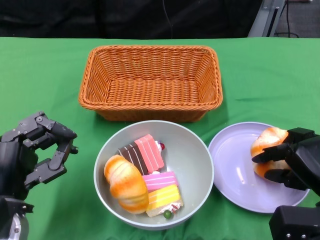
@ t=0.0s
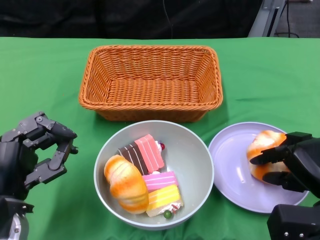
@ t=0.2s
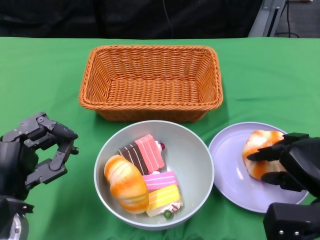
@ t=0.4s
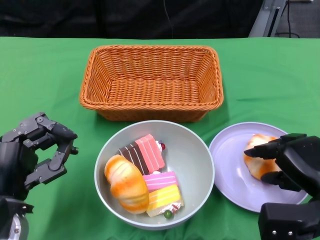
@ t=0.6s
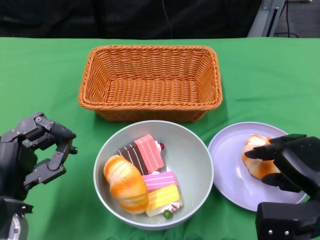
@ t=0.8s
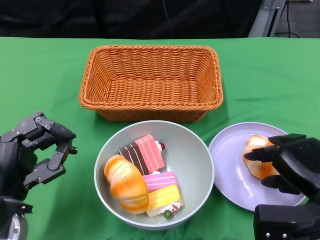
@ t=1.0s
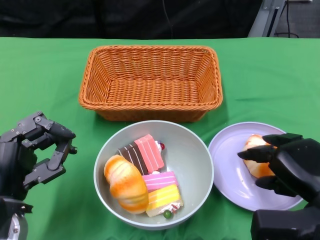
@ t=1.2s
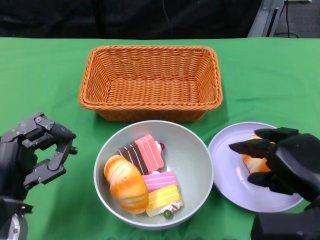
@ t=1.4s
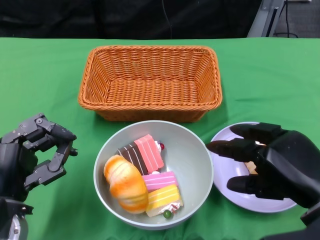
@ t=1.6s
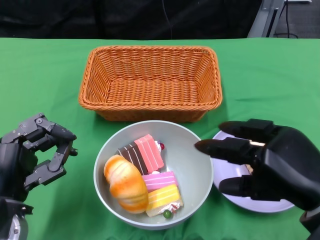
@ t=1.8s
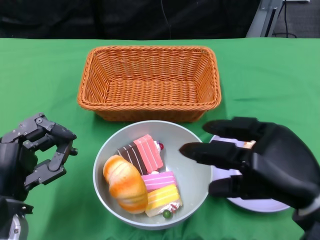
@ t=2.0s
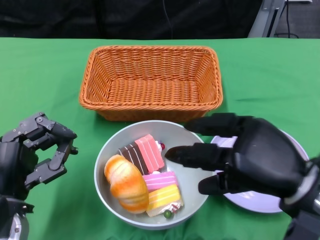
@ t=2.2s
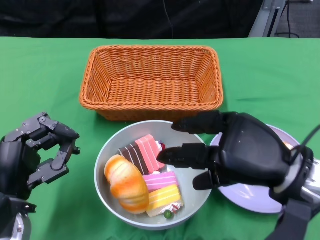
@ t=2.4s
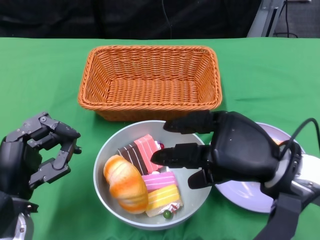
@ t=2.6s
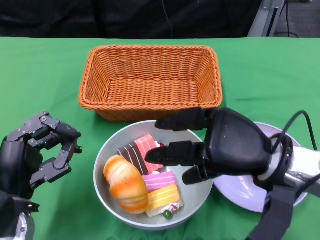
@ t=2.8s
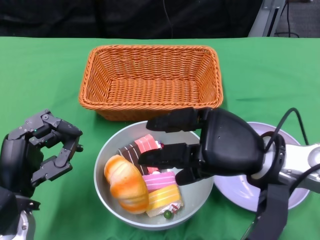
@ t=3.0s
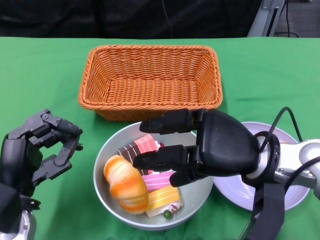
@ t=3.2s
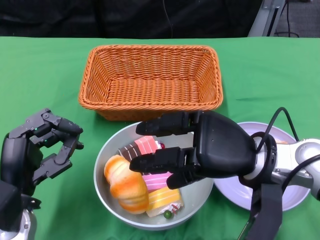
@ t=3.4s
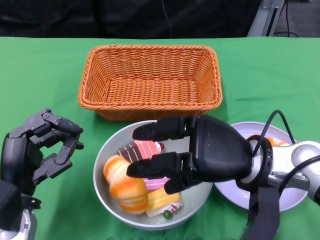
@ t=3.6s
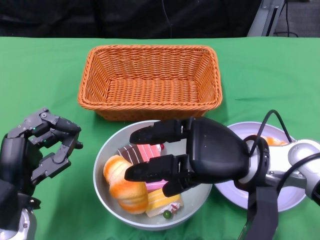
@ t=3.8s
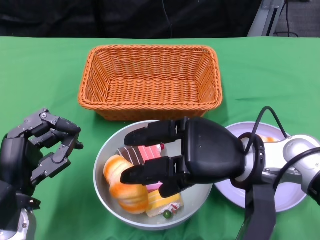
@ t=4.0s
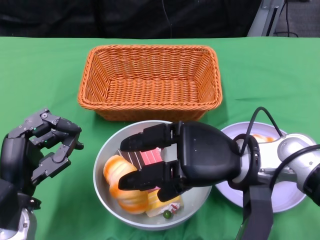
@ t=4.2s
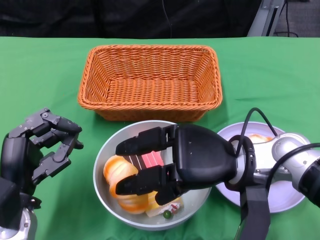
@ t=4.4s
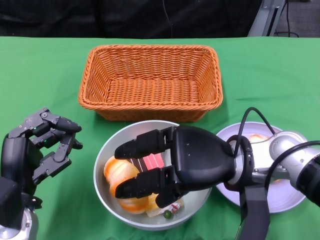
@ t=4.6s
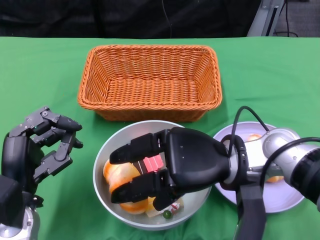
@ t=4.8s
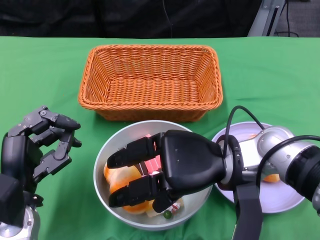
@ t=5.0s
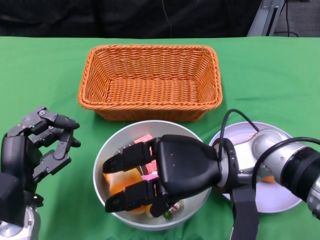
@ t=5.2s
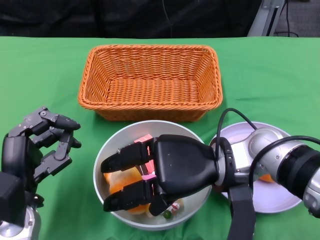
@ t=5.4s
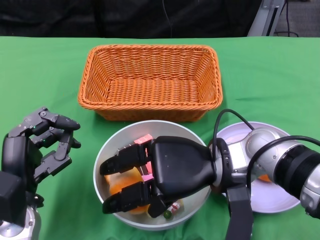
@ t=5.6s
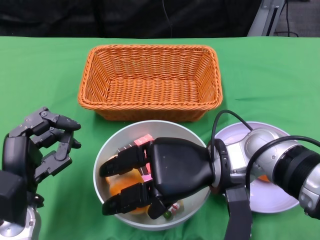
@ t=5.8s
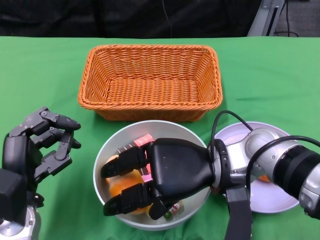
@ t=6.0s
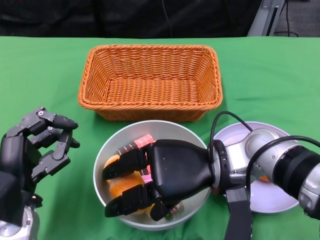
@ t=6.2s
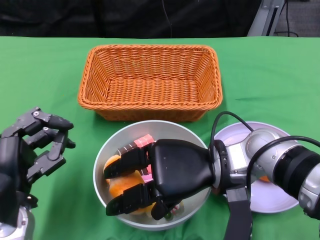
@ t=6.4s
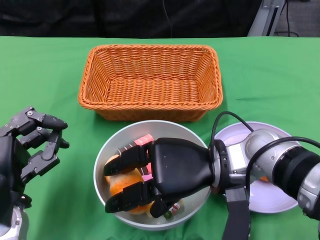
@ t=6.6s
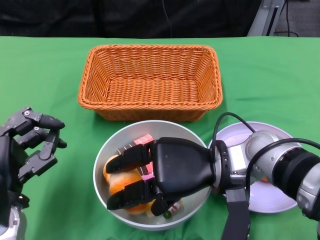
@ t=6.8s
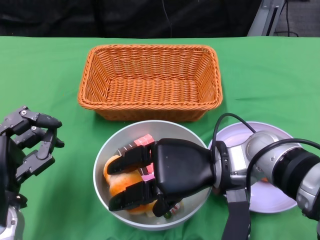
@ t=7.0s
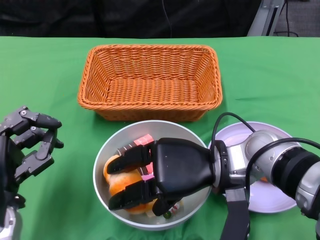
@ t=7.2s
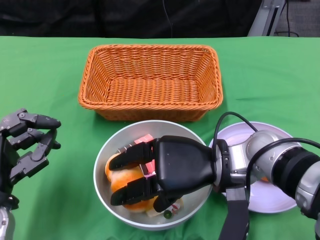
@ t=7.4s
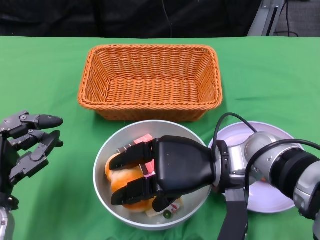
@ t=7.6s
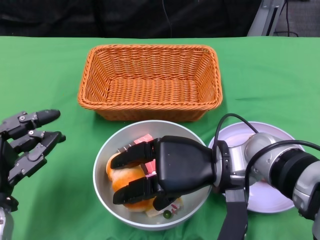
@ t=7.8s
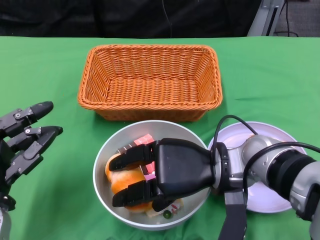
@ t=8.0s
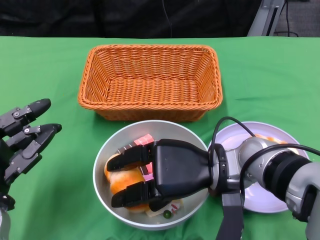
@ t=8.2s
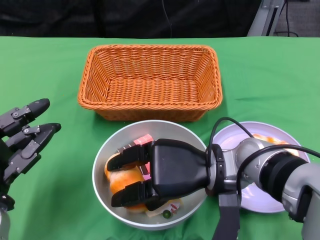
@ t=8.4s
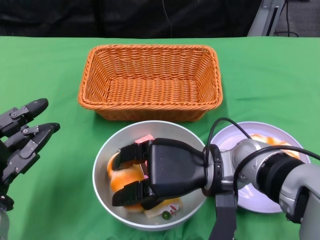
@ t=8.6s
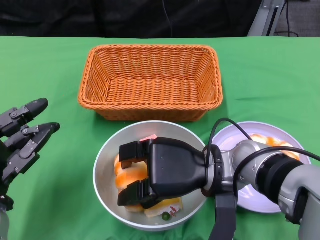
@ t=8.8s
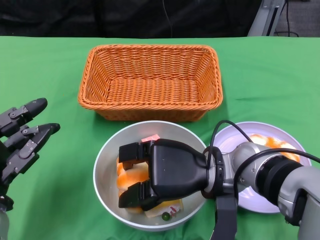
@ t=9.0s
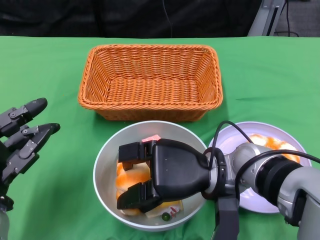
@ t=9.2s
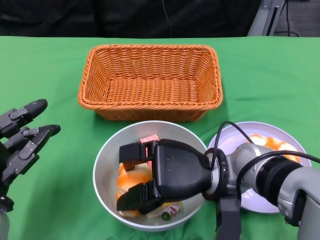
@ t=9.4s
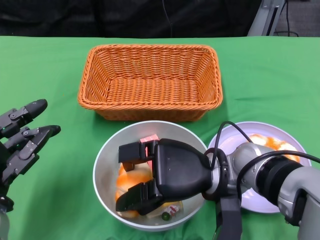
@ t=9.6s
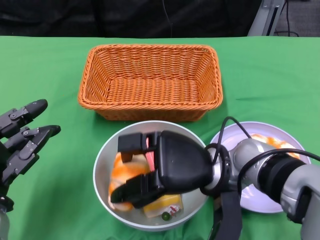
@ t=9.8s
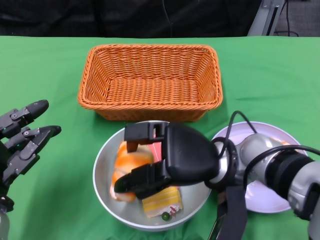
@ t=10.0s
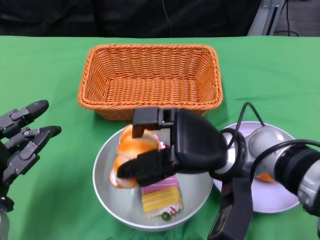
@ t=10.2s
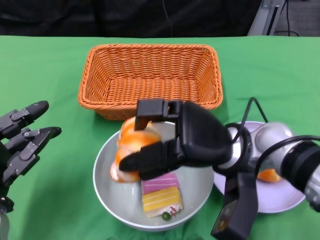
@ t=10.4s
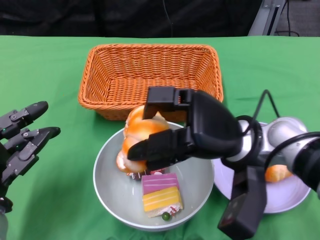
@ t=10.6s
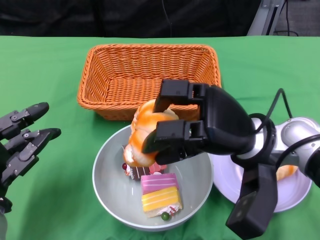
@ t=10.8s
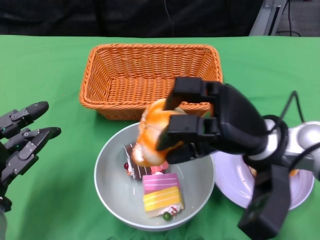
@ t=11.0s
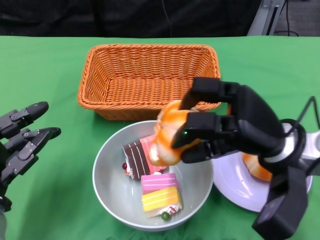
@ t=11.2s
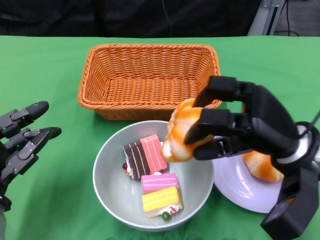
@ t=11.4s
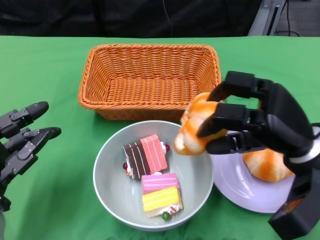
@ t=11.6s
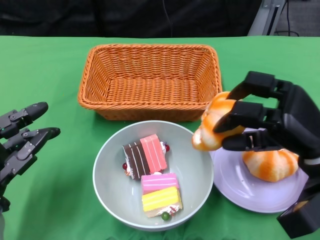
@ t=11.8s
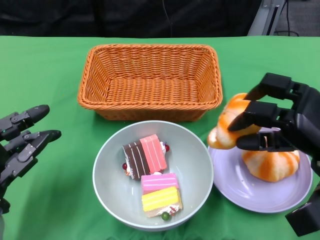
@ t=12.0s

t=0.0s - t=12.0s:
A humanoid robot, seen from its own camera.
t=0.0s - t=1.6s: The right hand moves upward, roughly 5 cm.
t=1.6s - t=3.0s: The right hand heads forward and to the left, covering about 10 cm.
t=6.0s - t=7.6s: The hands make only small movements.
t=10.4s - t=12.0s: The right hand travels to the right by roughly 15 cm.

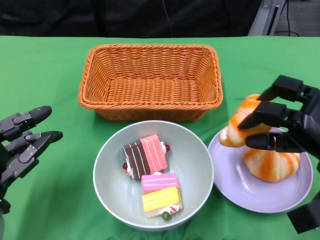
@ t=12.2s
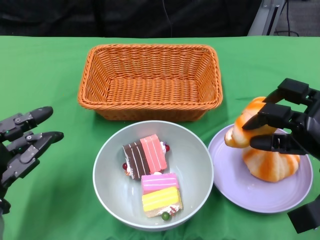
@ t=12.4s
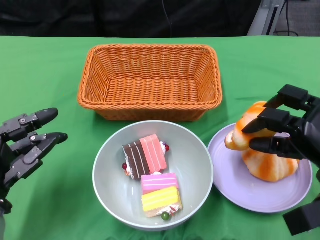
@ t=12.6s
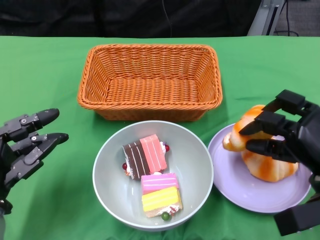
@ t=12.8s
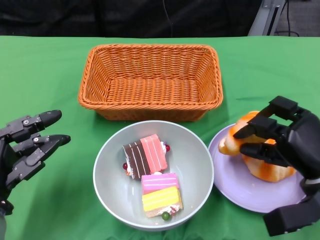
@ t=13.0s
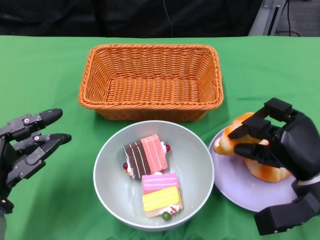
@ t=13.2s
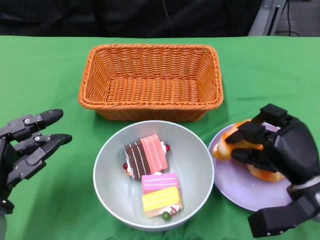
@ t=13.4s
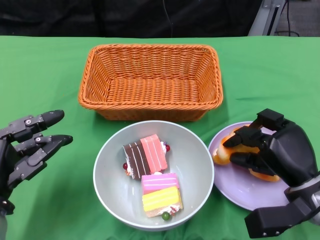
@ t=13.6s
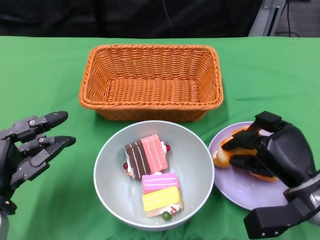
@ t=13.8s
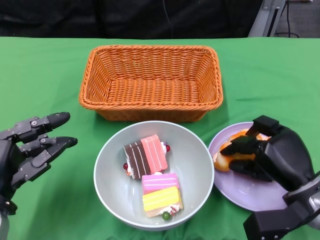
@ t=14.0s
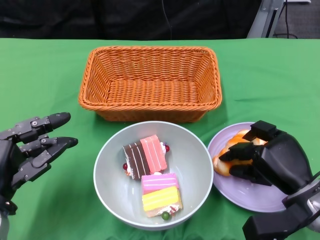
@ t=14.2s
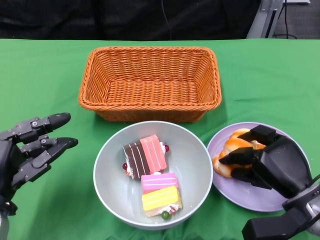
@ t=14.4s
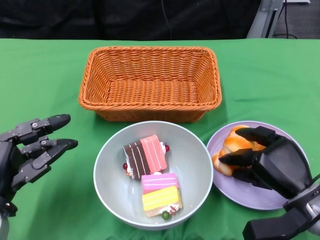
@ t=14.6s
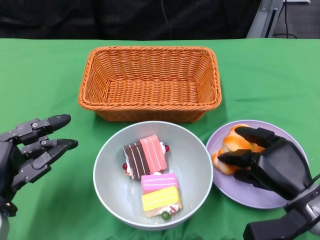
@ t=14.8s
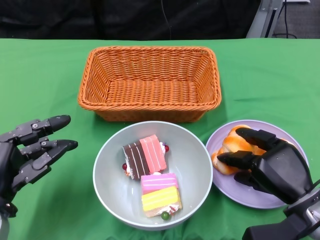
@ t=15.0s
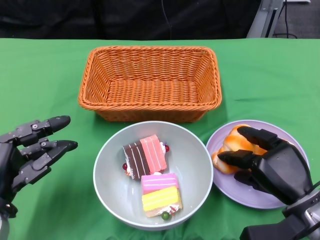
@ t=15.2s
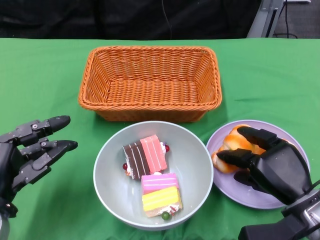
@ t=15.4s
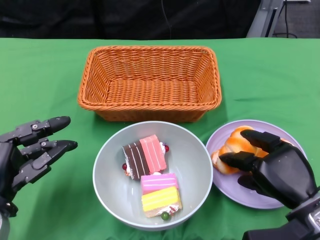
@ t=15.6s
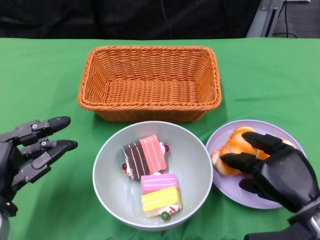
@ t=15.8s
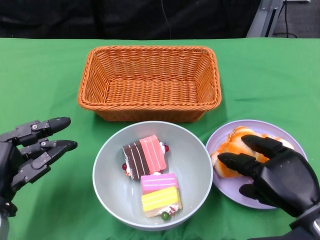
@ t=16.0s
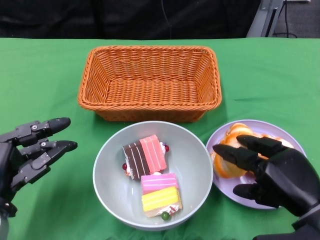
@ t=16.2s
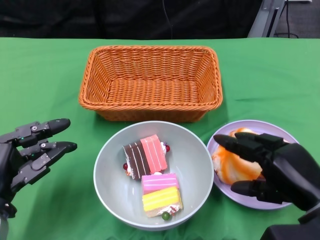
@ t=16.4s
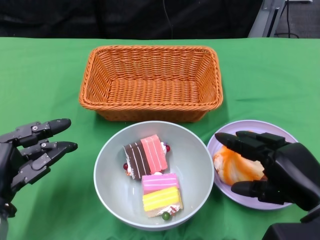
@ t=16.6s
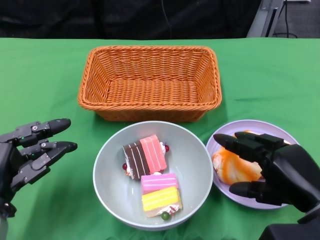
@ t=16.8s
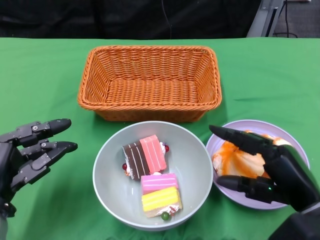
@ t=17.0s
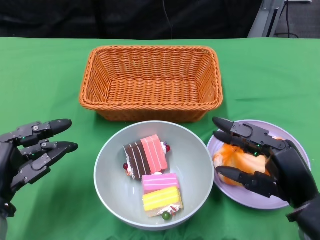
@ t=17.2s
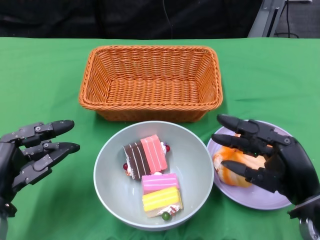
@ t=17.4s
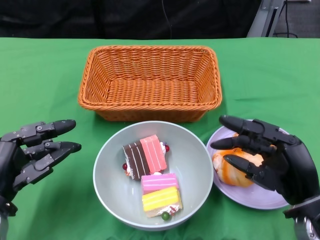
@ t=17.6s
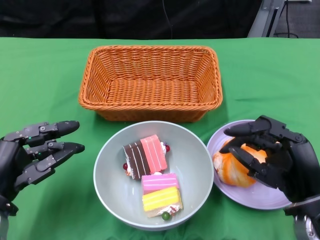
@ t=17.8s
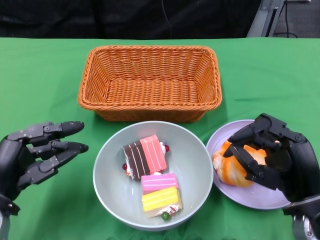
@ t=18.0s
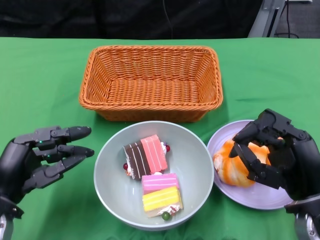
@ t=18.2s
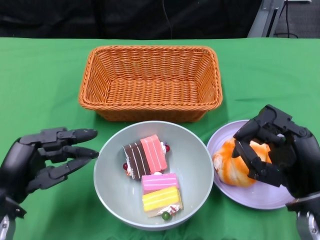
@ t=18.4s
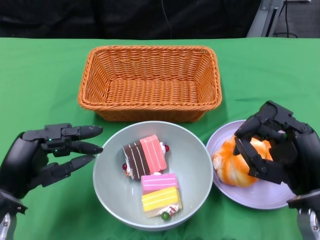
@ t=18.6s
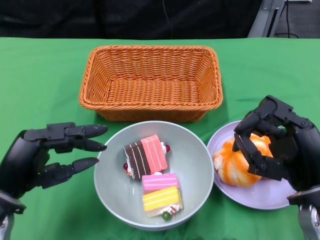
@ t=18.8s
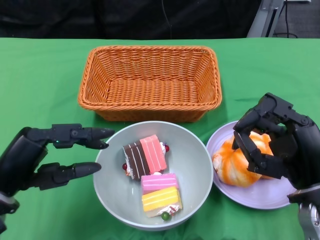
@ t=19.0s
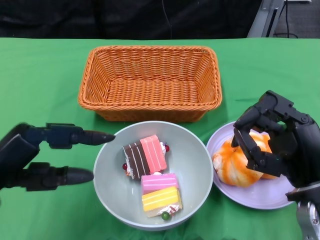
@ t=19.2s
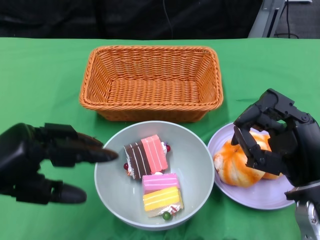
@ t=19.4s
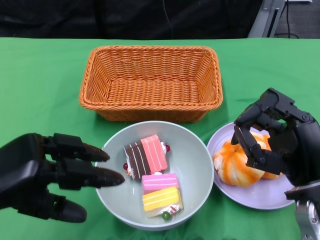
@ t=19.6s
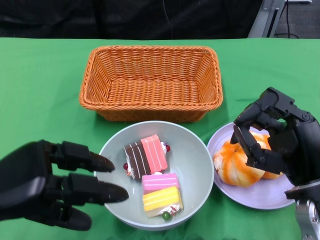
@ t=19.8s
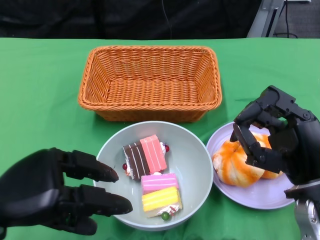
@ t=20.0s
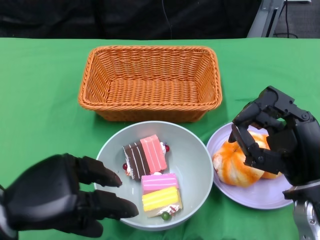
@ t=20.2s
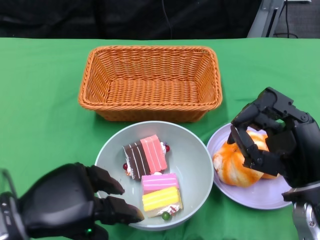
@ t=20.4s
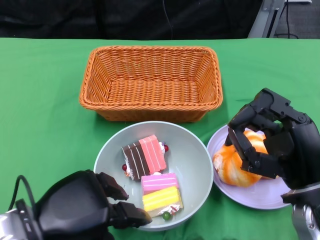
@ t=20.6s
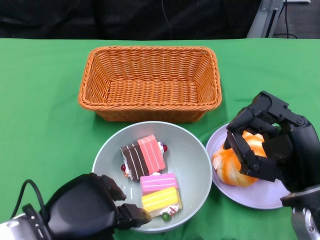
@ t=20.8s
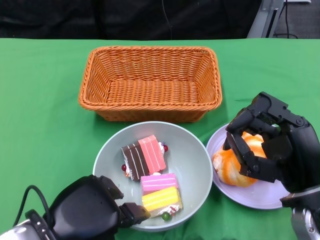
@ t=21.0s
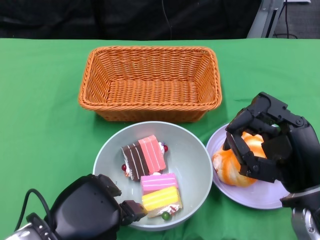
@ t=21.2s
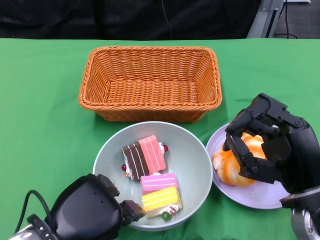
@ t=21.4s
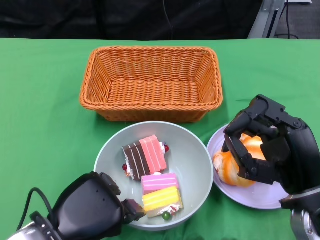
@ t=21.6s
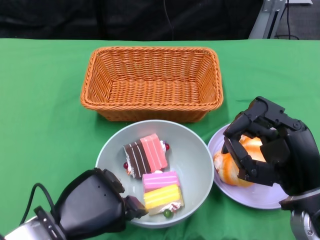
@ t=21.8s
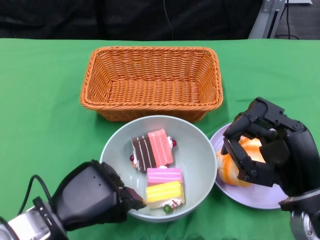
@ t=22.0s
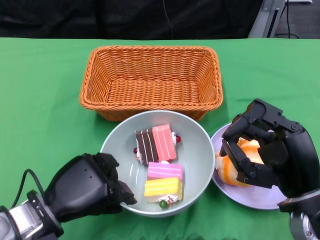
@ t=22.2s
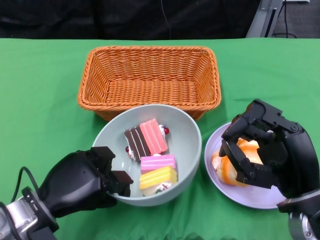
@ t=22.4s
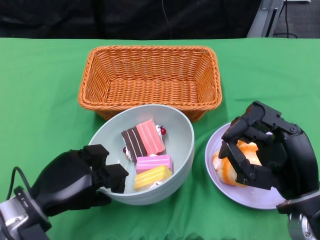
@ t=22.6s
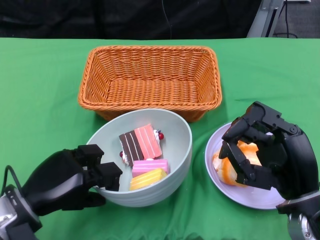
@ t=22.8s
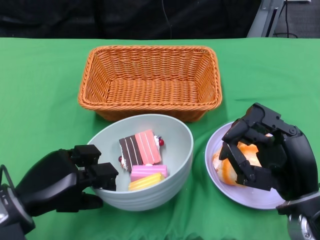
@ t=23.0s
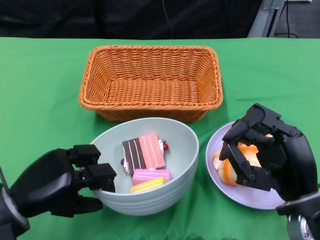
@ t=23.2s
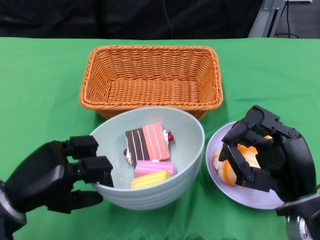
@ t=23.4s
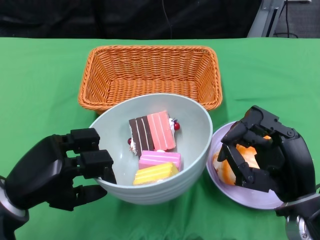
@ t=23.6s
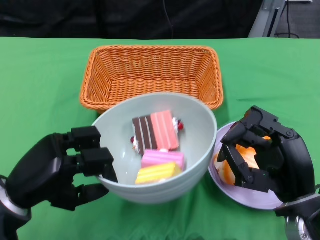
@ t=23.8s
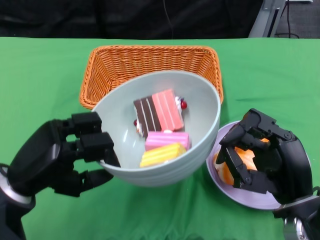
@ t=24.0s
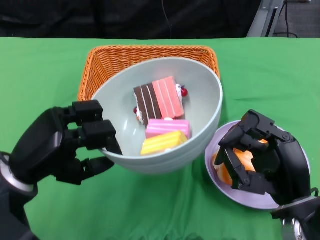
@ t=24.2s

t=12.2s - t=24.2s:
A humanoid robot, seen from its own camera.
Step, t=12.2s - t=17.0s: Pick up the bread with the right gripper and place it on the plate.
Step, t=17.2s - t=22.4s: Grasp the bowl with the left gripper.
t=12.2s - t=13.8s: The right hand travels downward by some 5 cm.
t=13.8s - t=15.2s: There are only small adjustments of the hands.
t=15.2s - t=16.6s: The right hand moves upward, roughly 5 cm.
t=18.2s - t=19.8s: The left hand moves upward, roughly 10 cm.
t=19.8s - t=21.2s: The left hand is displaced to the right by approximately 5 cm.
t=21.2s - t=22.6s: The left hand heads forward, covering roughly 5 cm.
t=22.6s - t=24.2s: The left hand goes some 5 cm upward.
